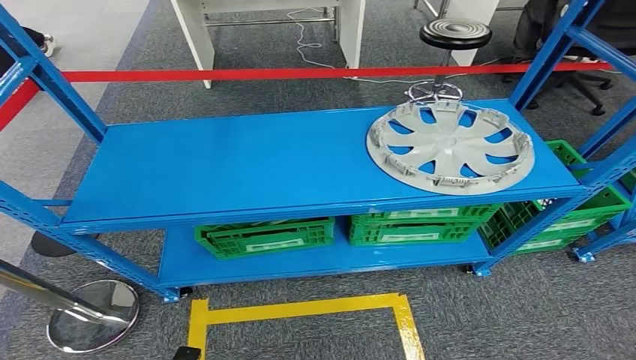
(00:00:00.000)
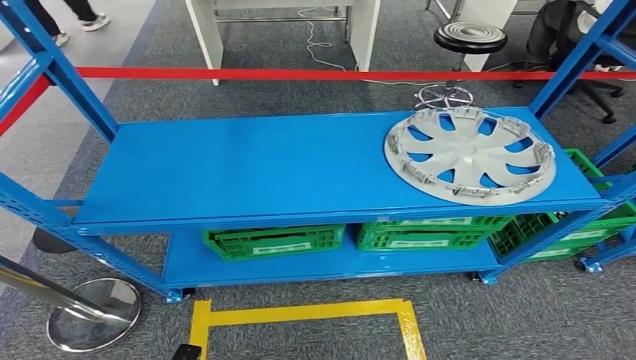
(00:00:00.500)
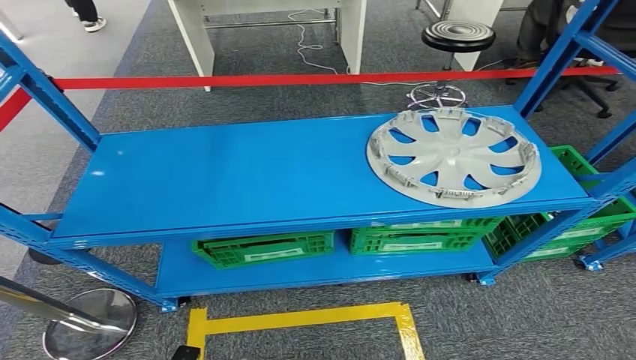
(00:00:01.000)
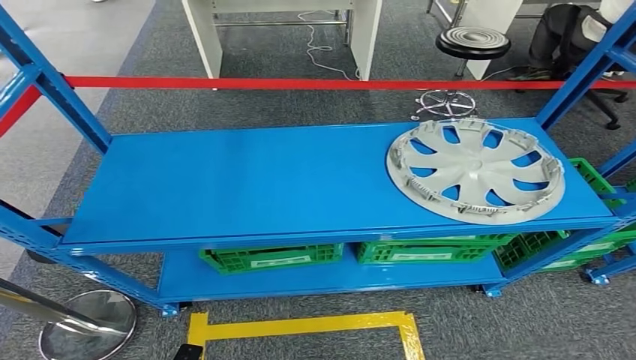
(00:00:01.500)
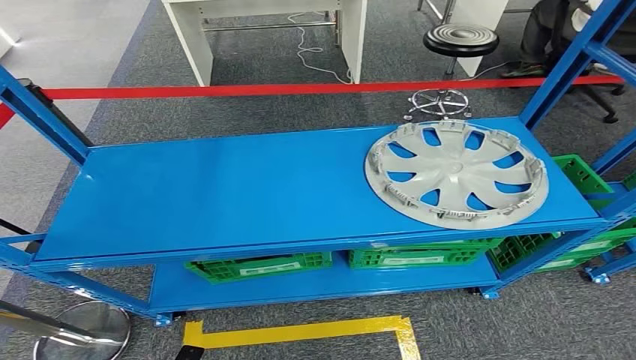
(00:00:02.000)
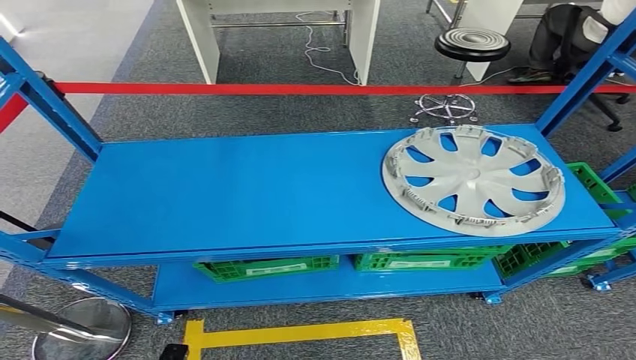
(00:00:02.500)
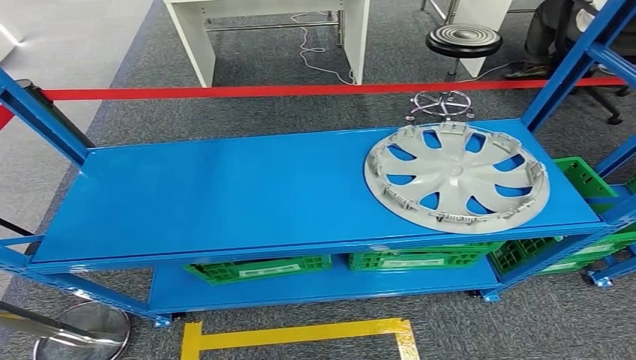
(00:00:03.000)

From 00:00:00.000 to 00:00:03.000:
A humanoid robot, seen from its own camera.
Step, from 00:00:00.000 to 00:00:03.000: Move to the initial position at the workbench.
